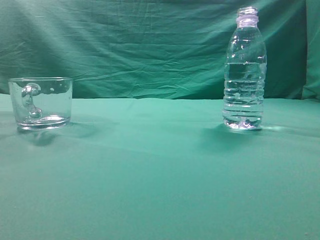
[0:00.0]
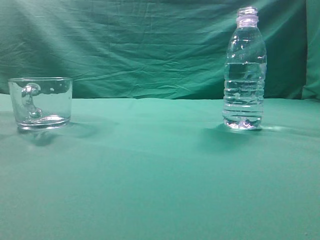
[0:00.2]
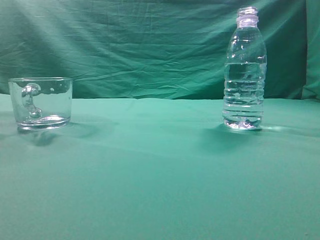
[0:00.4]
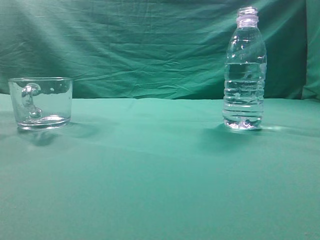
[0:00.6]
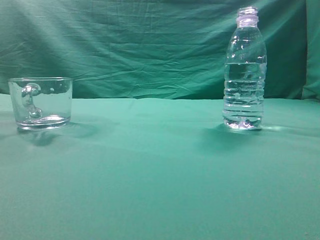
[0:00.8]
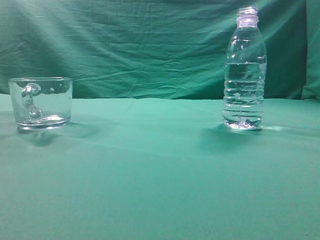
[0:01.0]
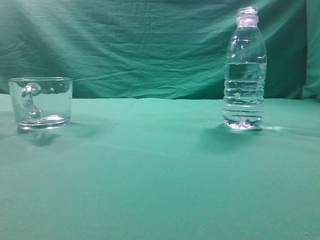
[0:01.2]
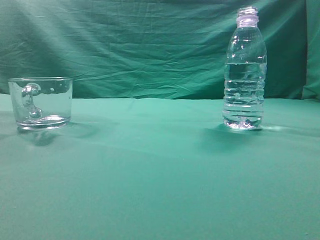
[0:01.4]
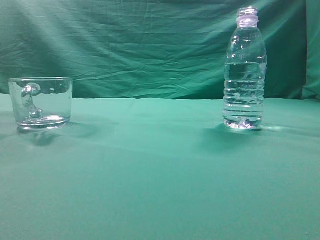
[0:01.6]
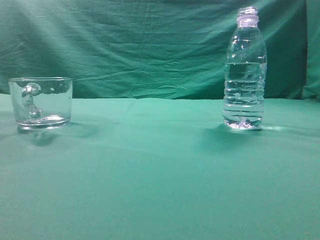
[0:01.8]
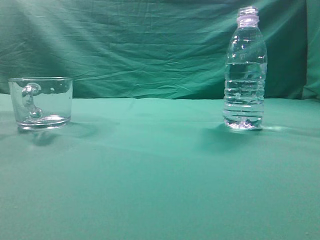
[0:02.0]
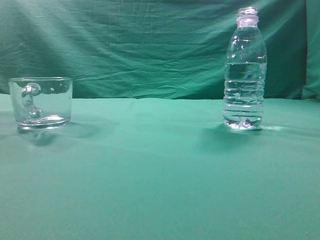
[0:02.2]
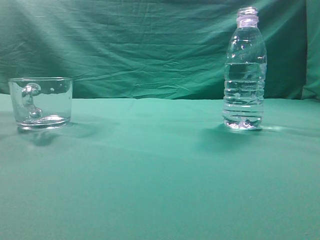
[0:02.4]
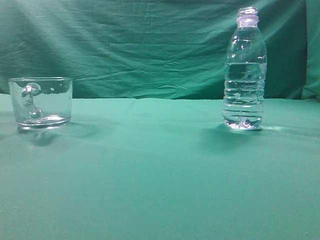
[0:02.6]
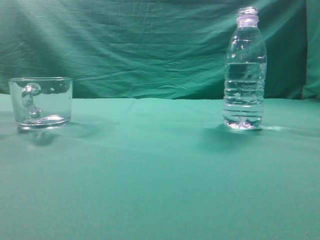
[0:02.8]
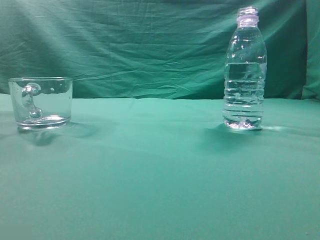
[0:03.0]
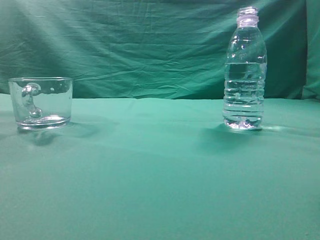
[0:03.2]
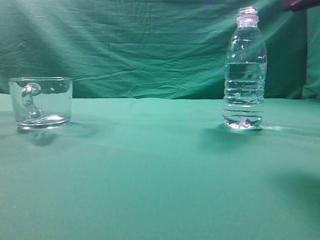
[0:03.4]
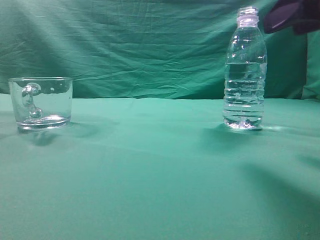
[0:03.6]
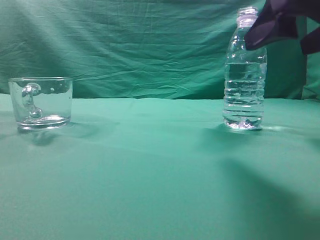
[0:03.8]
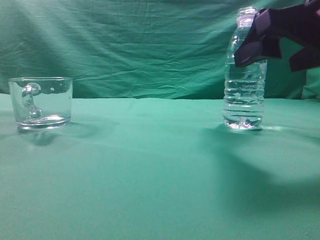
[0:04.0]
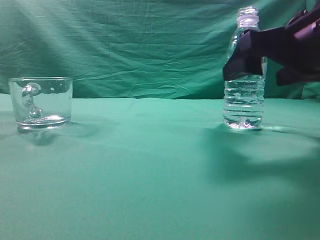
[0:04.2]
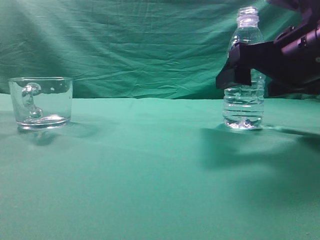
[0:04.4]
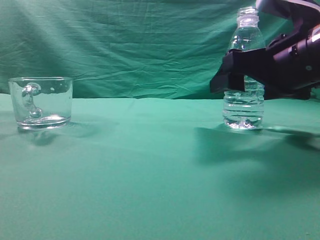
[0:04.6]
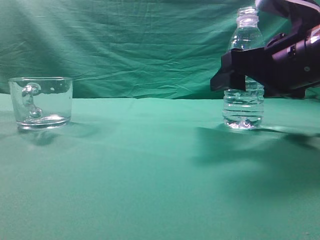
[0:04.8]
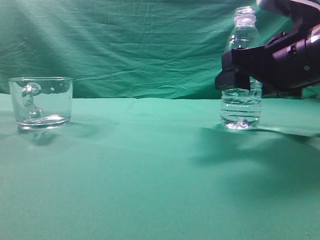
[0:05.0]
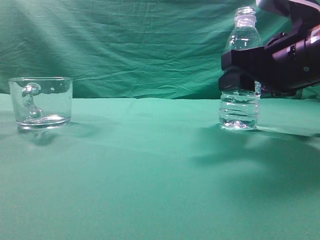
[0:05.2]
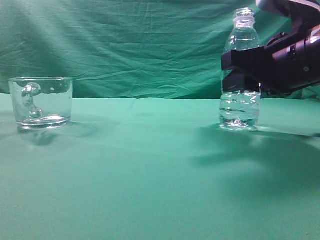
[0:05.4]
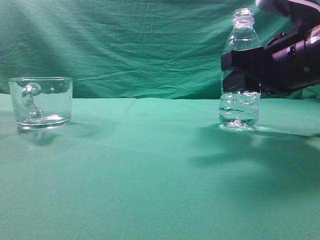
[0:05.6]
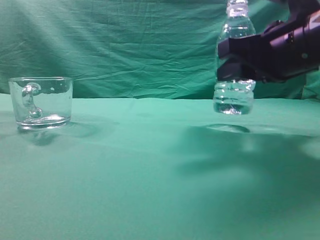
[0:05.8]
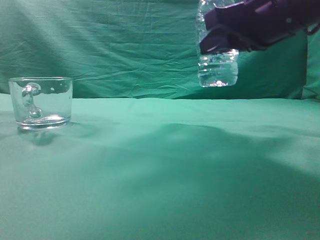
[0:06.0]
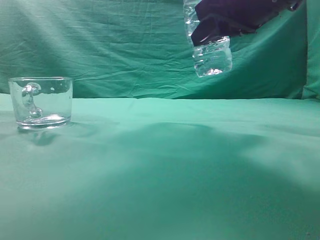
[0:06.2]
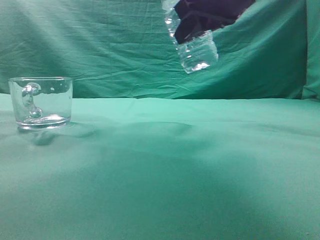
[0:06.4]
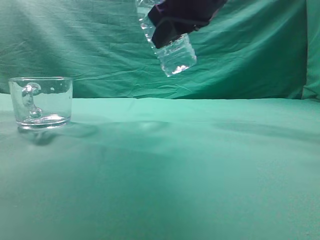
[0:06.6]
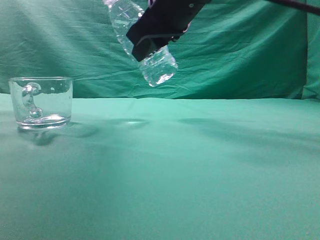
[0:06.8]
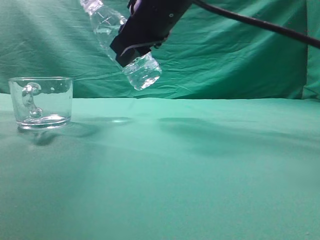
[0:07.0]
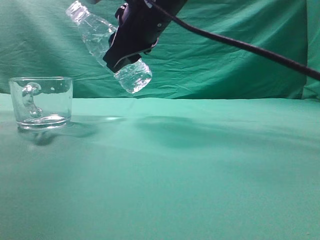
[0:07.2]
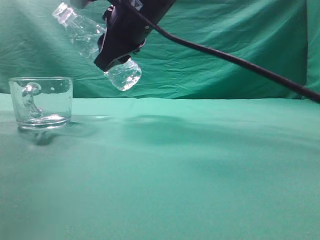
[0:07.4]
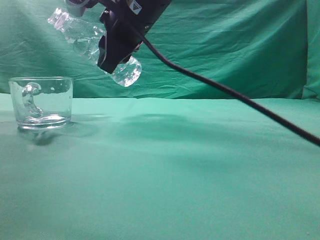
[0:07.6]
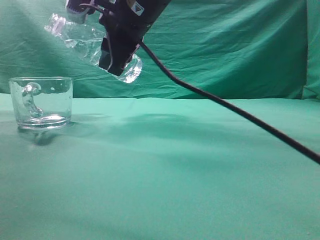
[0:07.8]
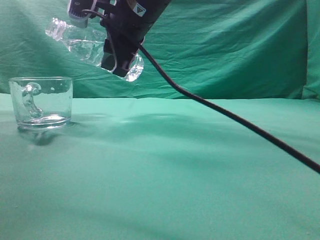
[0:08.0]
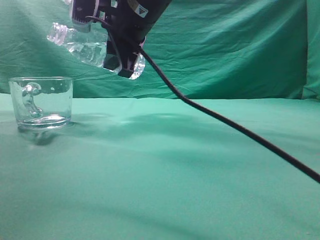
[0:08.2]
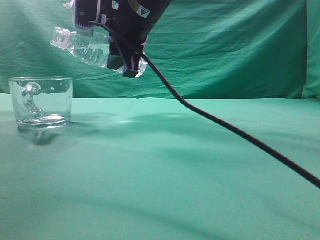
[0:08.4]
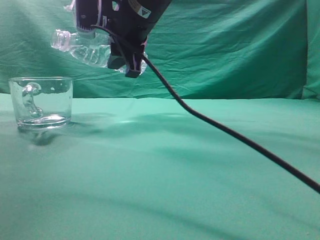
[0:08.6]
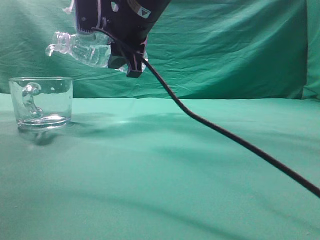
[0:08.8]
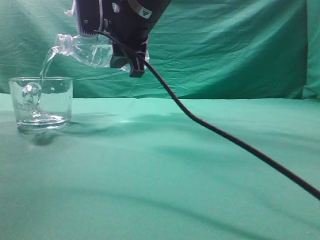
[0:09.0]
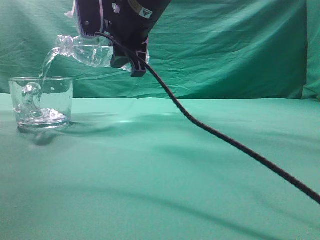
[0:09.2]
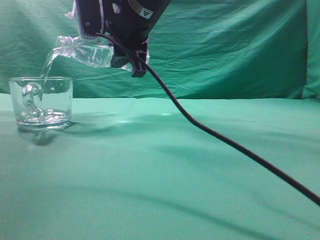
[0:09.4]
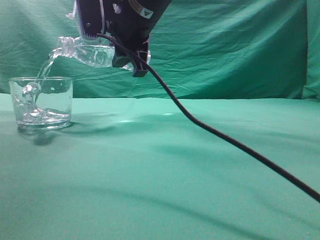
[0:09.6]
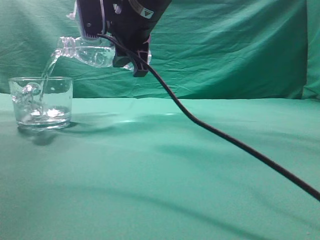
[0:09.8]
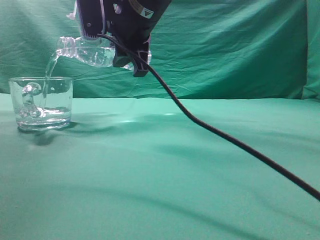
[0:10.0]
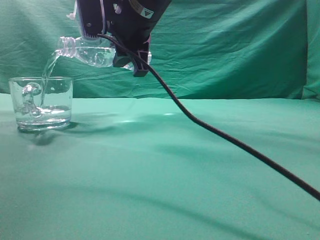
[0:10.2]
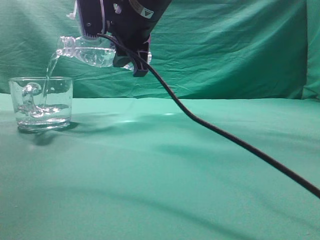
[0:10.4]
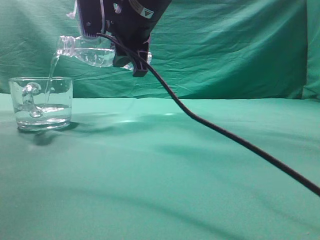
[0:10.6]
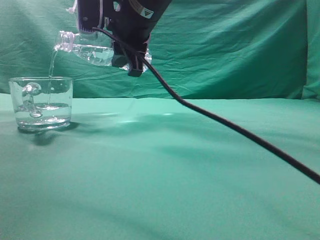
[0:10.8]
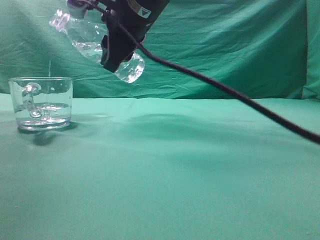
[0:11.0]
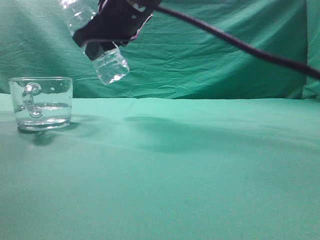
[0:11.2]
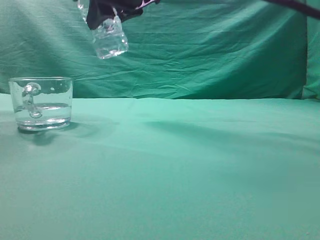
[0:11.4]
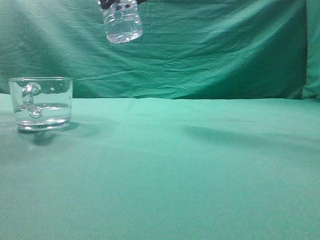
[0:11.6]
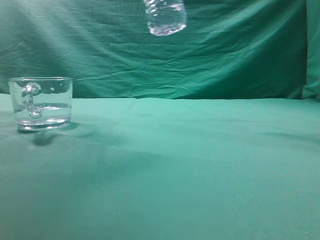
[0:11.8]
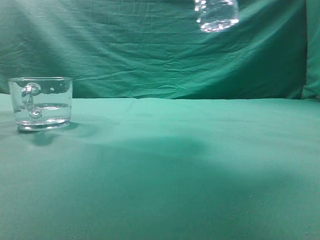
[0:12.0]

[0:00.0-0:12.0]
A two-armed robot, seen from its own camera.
Task of the whole recording: pick up the water bottle and pour the water in it into the glass.
Step, 0:00.0 to 0:05.8: Grasp the mineral water bottle.
Step, 0:06.0 to 0:11.0: Pour water into the teacup.
0:03.0 to 0:04.4: The right gripper is displaced forward, downward and to the left by about 20 cm, and opens.
0:04.4 to 0:06.0: The right gripper travels upward by about 5 cm, and closes its fingers.
0:06.0 to 0:07.6: The right gripper goes about 20 cm to the left and forward.
0:09.0 to 0:10.4: Both grippers stay put.
0:10.4 to 0:12.0: The right gripper travels to the right, backward and upward by roughly 20 cm.

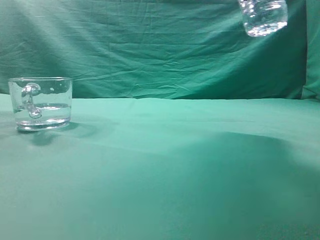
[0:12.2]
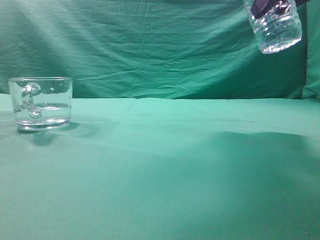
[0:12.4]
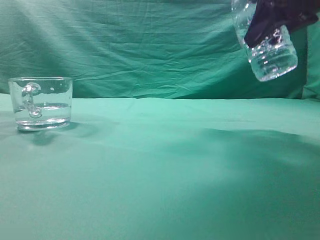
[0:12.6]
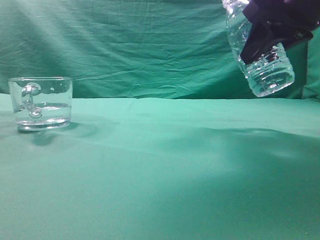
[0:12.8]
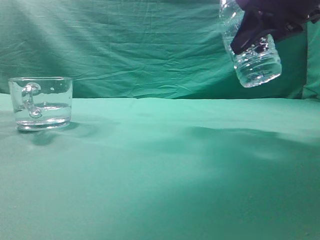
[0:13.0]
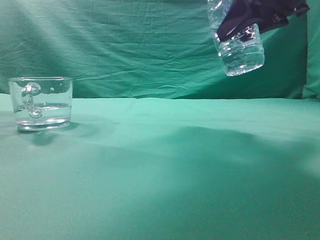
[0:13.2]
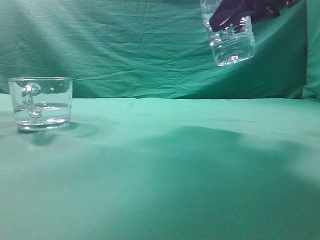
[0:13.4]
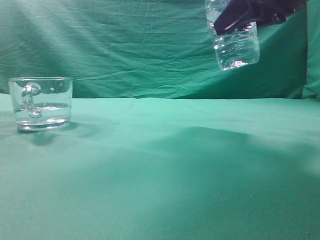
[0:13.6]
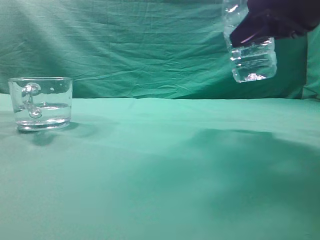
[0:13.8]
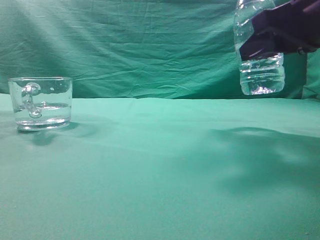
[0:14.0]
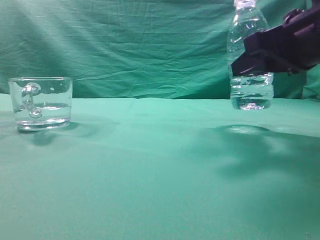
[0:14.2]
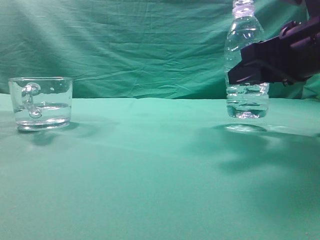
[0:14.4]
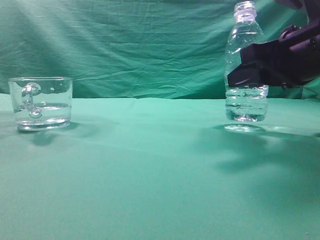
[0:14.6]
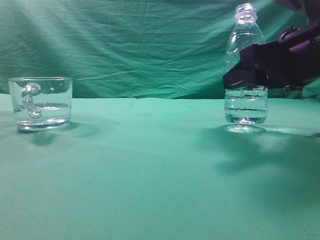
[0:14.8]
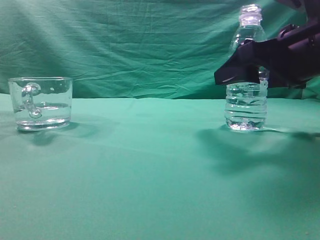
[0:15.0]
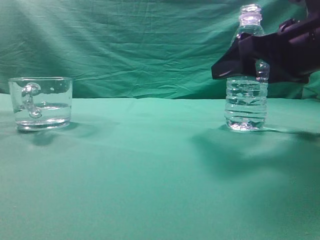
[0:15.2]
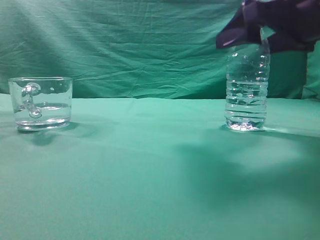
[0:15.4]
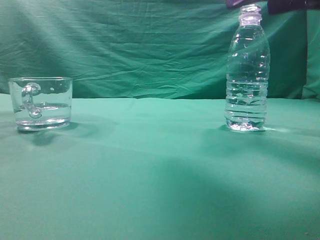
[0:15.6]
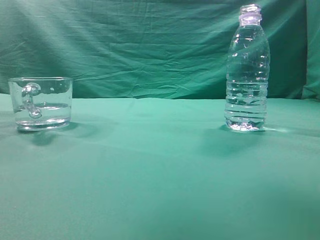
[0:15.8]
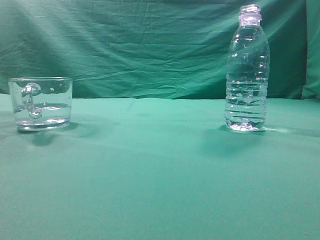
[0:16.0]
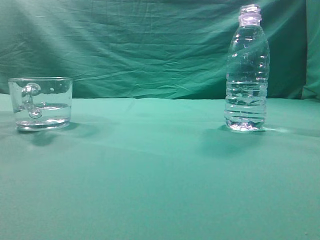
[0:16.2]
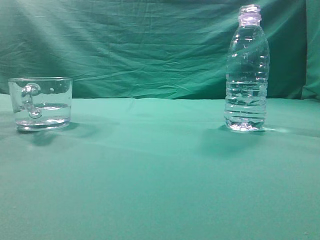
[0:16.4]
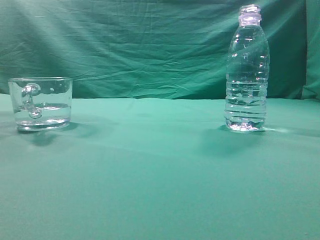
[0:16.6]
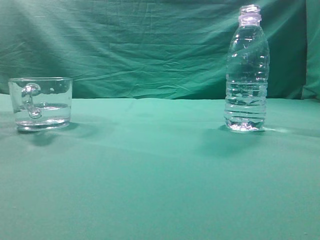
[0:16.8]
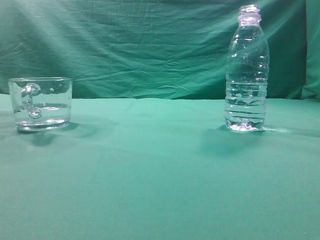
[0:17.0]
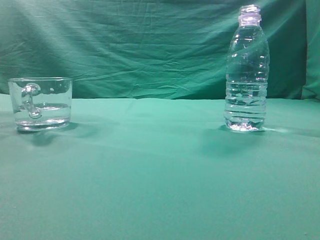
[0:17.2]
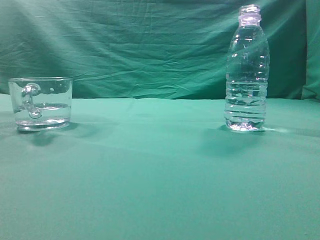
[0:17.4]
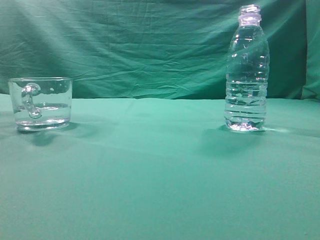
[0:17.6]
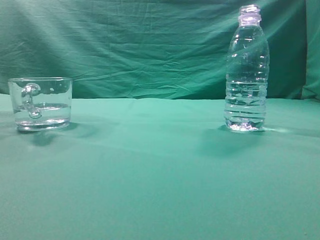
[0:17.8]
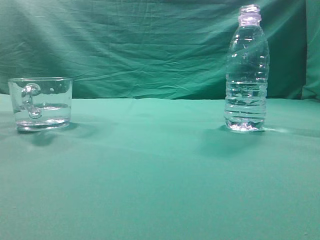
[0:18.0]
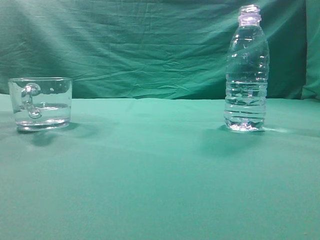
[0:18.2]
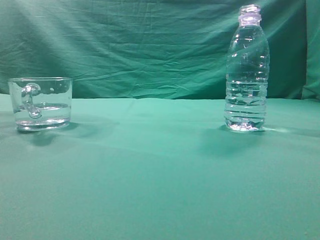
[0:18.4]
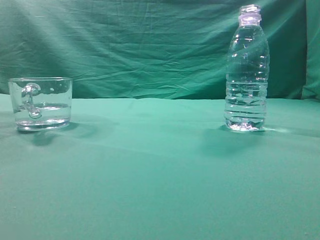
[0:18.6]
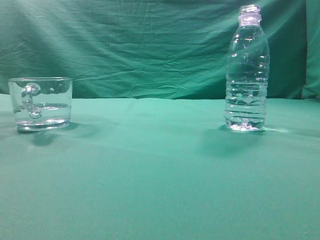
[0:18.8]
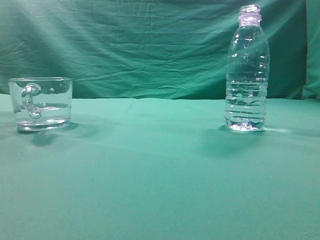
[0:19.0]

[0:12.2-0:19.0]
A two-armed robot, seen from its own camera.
Task of the whole recording: pick up the water bottle and pour the water in it into the glass.
0:12.2 to 0:13.6: The right gripper moves downward, approximately 5 cm.
0:13.6 to 0:15.0: The right gripper shifts some 10 cm downward, and opens up.
0:15.0 to 0:16.2: The right gripper heads upward and backward, covering some 25 cm, and closes up.
